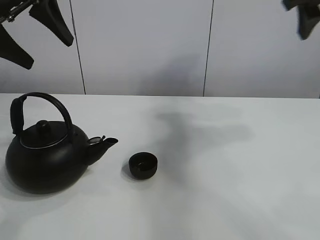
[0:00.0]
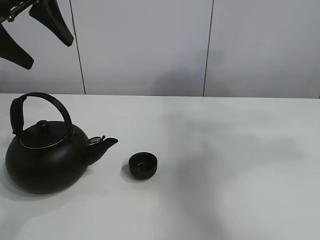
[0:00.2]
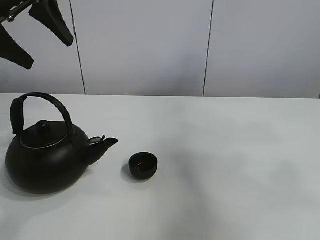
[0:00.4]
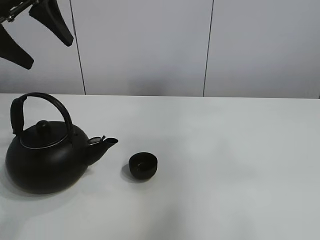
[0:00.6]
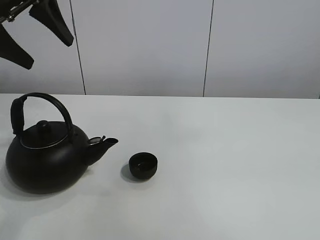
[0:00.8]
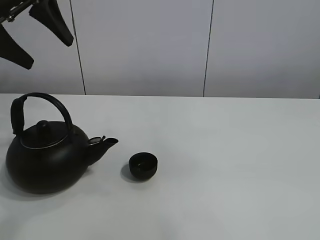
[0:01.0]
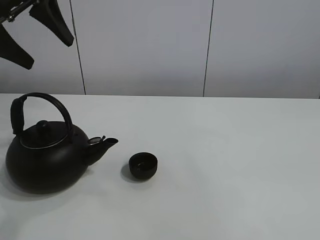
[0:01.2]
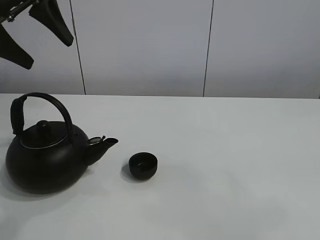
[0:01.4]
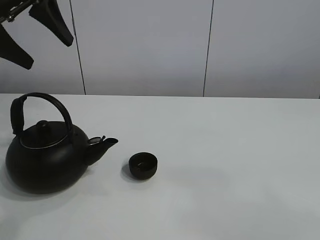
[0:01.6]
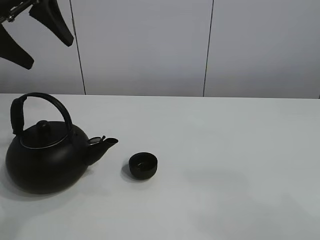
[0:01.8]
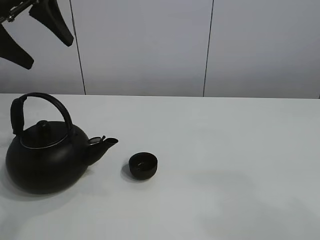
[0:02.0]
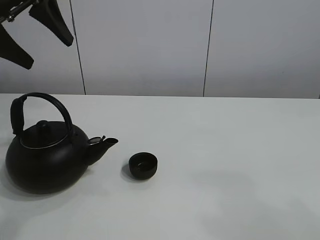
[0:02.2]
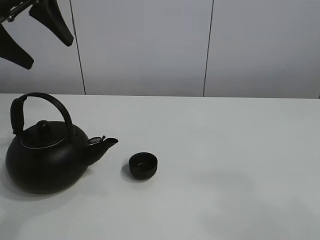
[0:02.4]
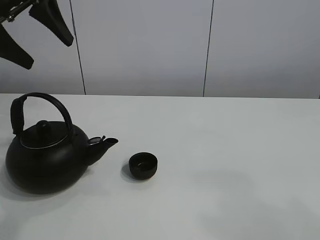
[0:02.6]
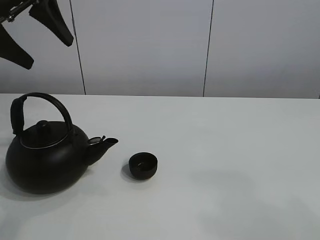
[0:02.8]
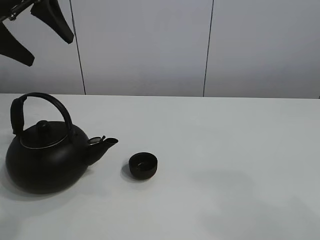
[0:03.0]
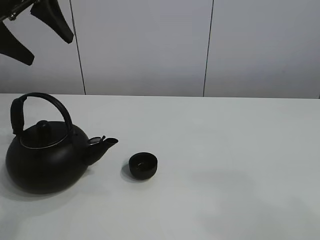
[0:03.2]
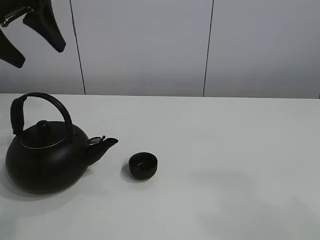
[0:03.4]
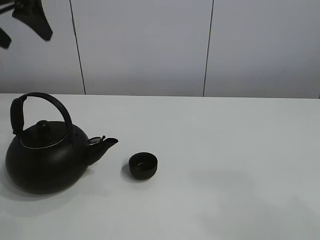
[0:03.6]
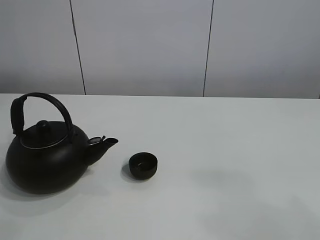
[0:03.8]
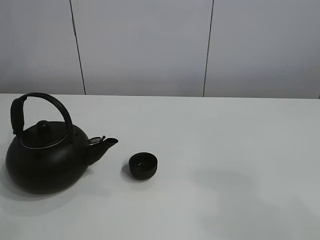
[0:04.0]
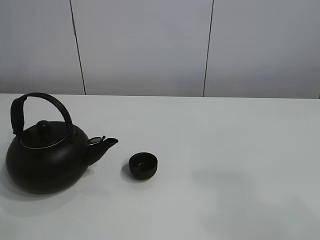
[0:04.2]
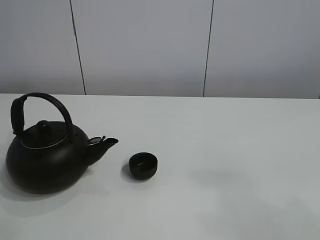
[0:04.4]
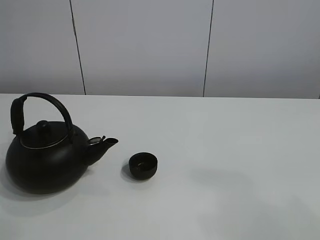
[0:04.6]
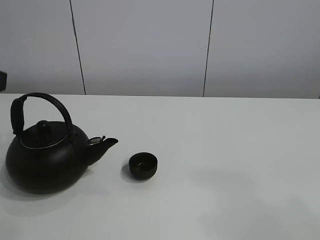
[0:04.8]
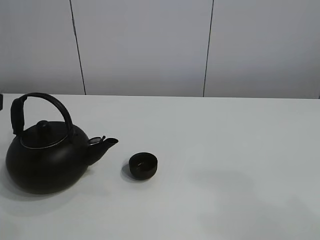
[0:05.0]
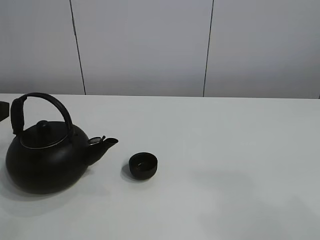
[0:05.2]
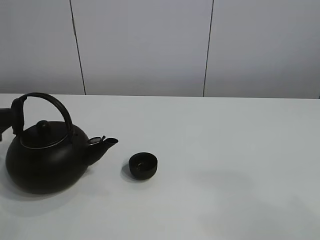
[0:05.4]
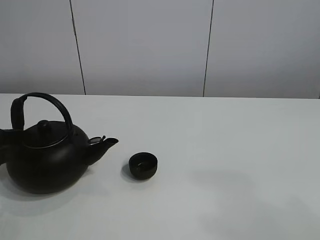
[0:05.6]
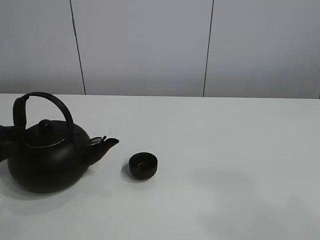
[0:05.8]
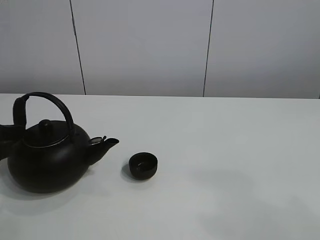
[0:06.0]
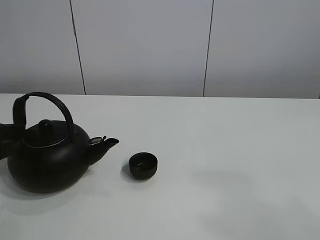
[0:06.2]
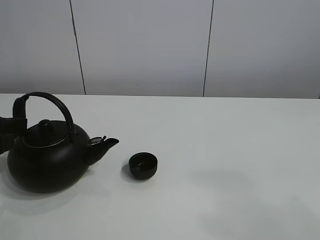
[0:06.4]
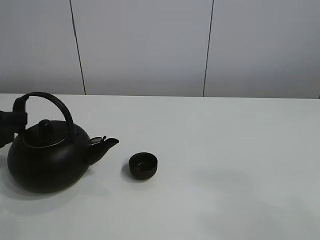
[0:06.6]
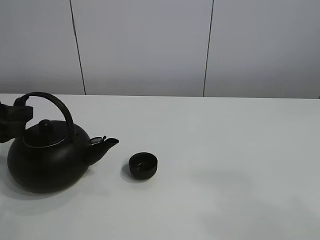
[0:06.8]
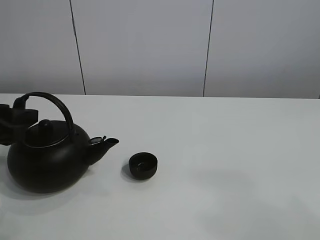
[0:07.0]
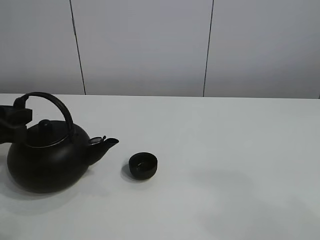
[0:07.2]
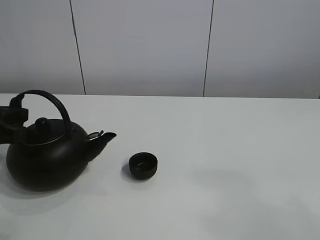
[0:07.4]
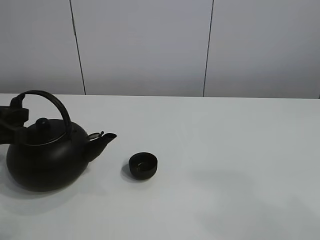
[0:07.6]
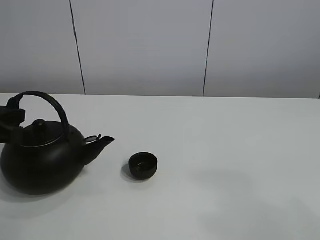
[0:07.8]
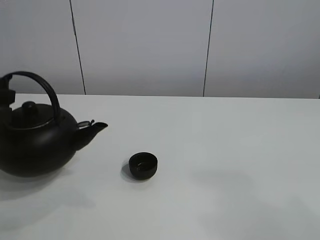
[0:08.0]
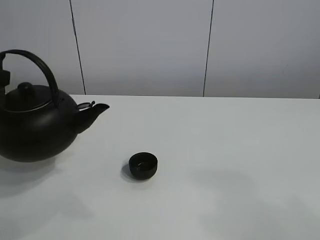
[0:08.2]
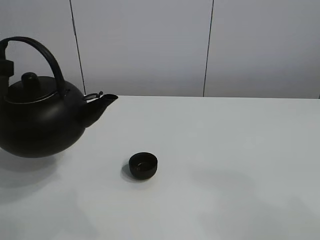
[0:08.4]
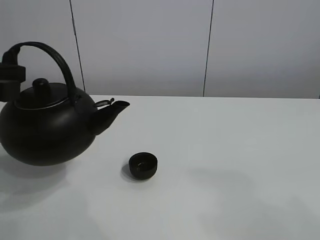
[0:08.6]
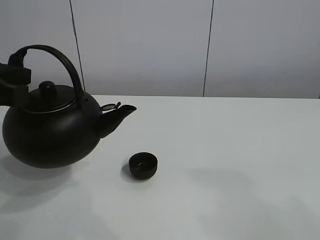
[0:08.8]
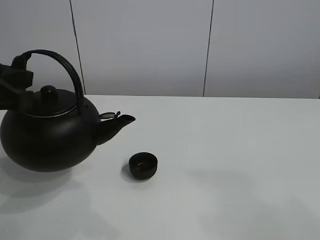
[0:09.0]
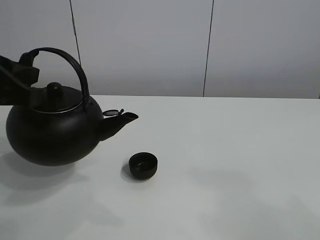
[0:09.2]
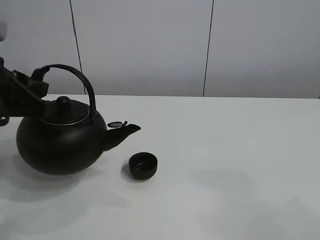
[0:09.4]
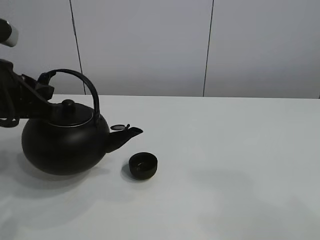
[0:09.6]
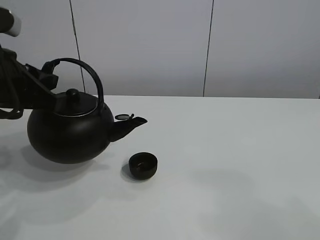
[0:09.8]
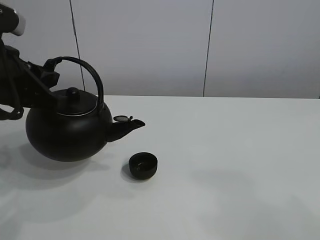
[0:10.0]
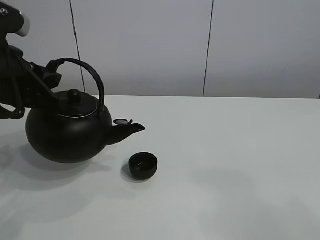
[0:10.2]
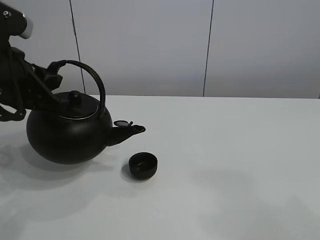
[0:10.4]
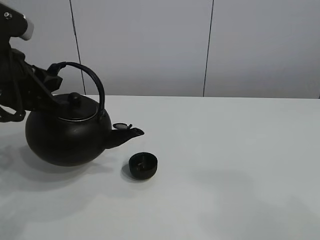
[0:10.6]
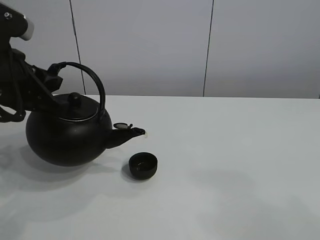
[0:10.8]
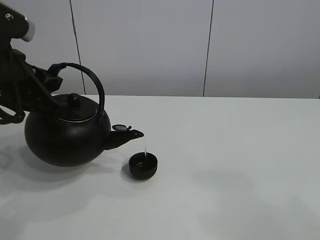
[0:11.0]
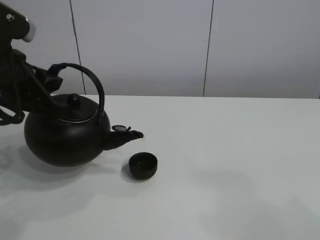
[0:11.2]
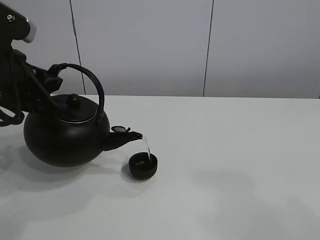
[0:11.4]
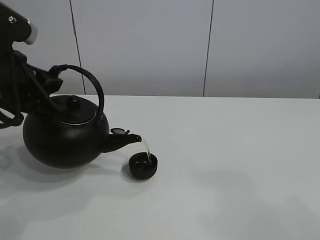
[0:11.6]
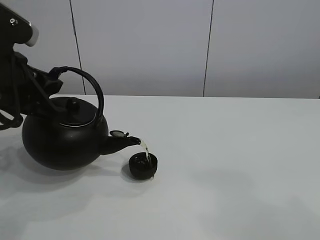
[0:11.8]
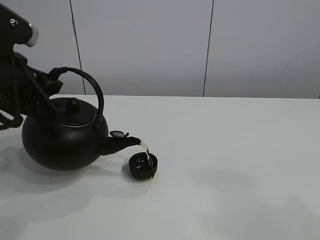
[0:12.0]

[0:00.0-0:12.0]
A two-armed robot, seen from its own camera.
Task of the whole recording: pour tea into the teacup.
Step, 0:00.0 to 0:07.2: Pick up the teapot with the left gripper.
0:00.0 to 0:01.6: The right gripper travels backward by some 35 cm.
0:03.0 to 0:04.4: The left gripper travels backward by some 15 cm.
0:04.4 to 0:06.0: The left gripper shifts roughly 25 cm downward.
0:06.0 to 0:07.6: The left gripper closes its fingers.
0:07.6 to 0:09.0: The left gripper moves upward, approximately 10 cm.
0:09.0 to 0:10.4: The left gripper changes place by some 5 cm.
0:10.4 to 0:12.0: The grippers make only small movements.

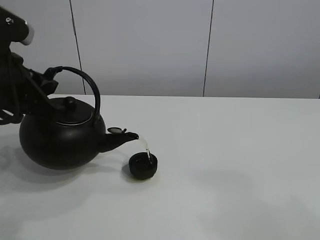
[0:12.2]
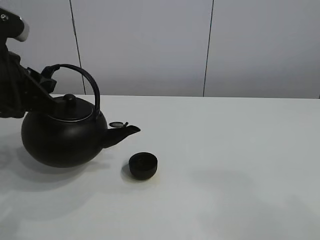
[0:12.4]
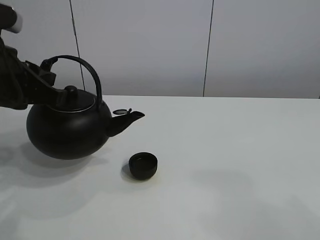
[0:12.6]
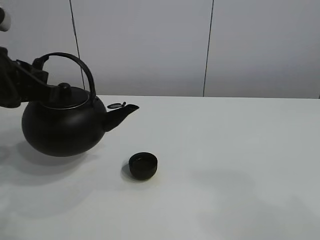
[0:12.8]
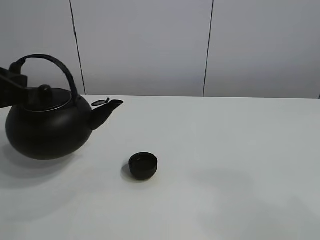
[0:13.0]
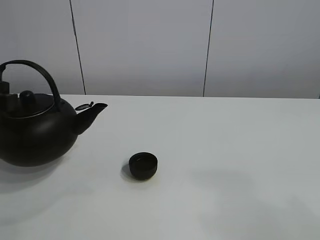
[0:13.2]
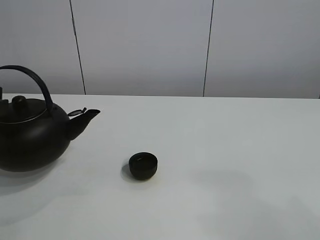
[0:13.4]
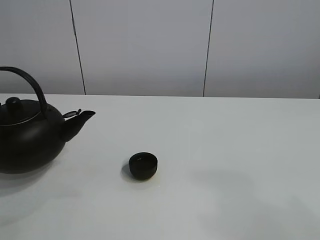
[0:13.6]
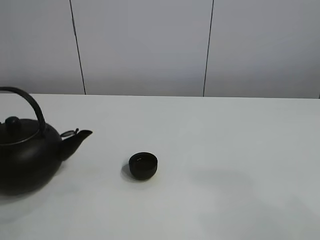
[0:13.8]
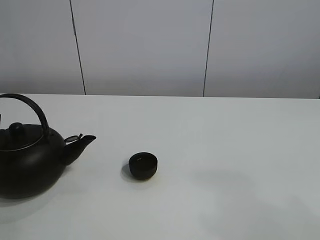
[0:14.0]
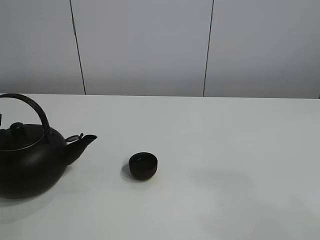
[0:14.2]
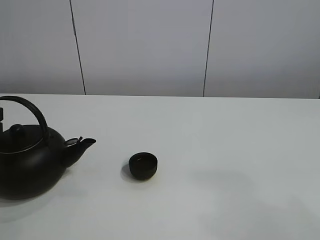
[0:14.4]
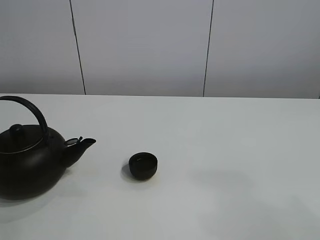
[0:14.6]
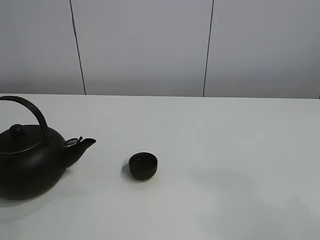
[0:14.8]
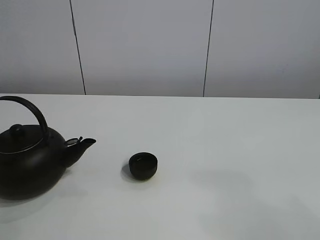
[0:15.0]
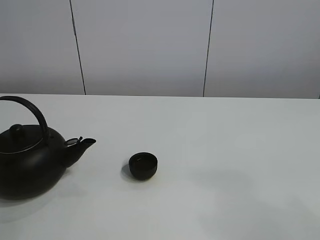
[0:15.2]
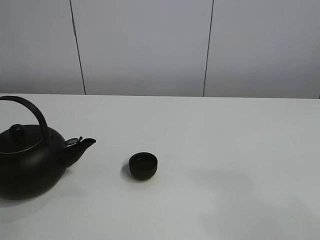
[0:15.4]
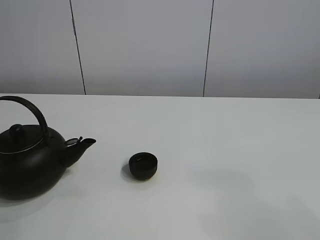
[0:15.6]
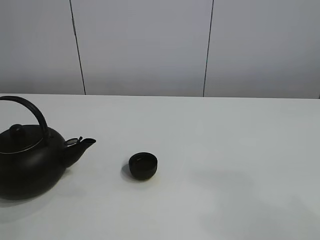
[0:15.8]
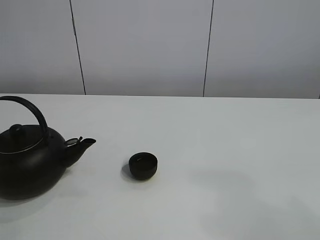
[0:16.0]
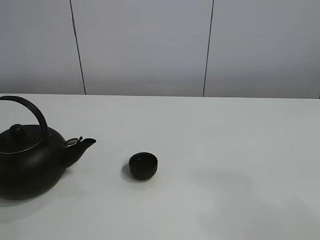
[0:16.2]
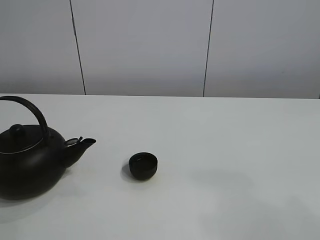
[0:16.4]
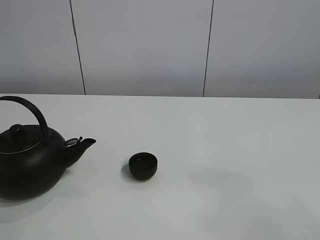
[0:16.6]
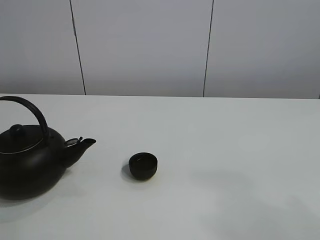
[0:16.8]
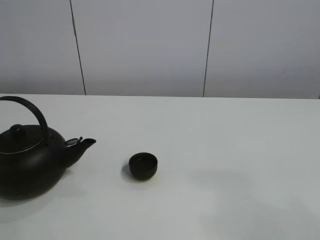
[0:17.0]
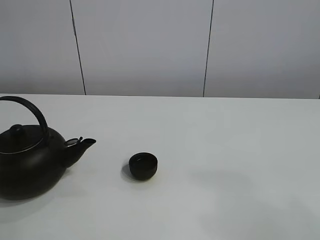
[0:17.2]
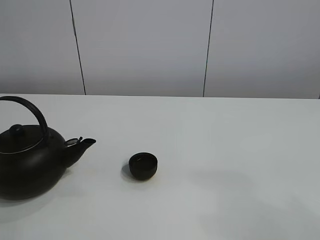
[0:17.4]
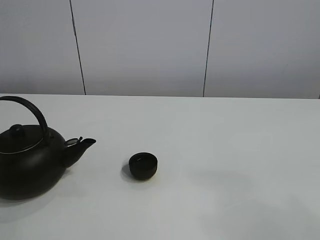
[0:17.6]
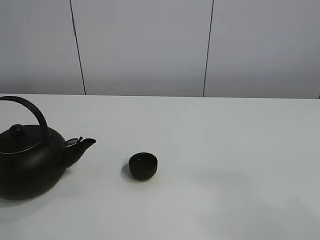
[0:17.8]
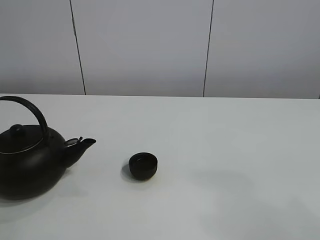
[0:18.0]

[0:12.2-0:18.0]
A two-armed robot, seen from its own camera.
Task of the whole recording: pour tea into the teacup.
0:12.2 to 0:13.6: The left gripper travels to the left by some 10 cm.
0:13.6 to 0:15.0: The left gripper moves approximately 5 cm, and opens its fingers.

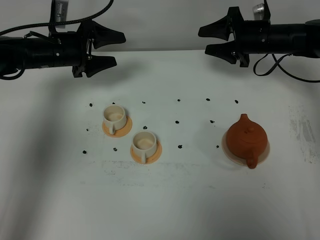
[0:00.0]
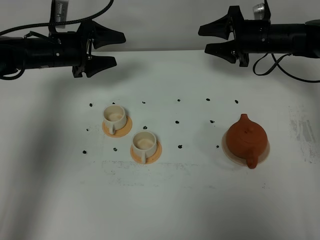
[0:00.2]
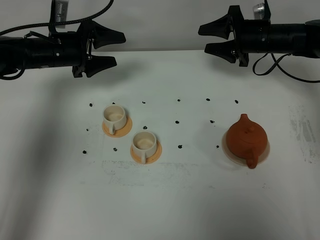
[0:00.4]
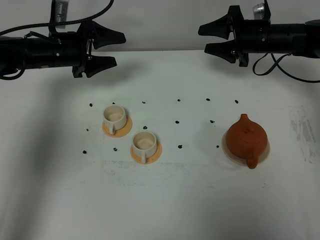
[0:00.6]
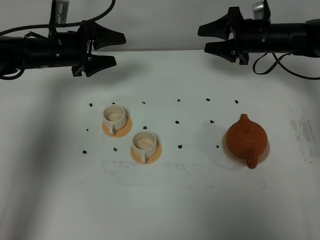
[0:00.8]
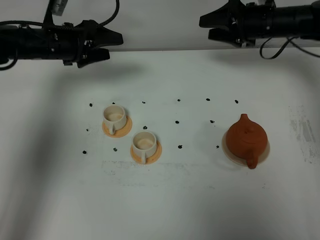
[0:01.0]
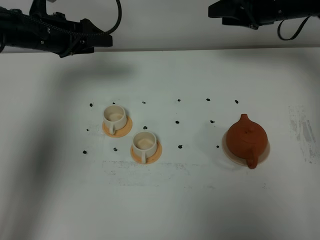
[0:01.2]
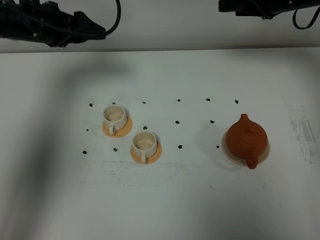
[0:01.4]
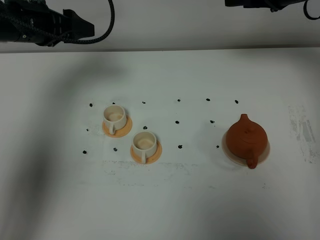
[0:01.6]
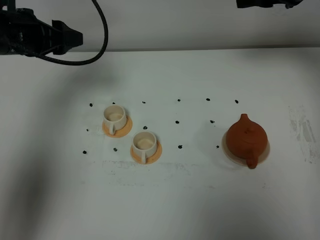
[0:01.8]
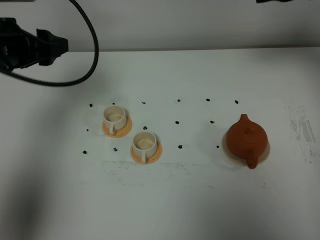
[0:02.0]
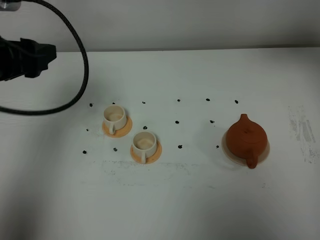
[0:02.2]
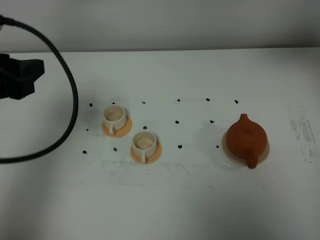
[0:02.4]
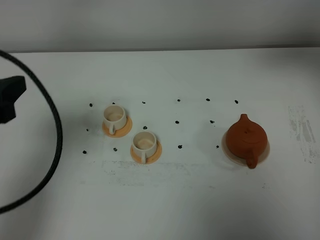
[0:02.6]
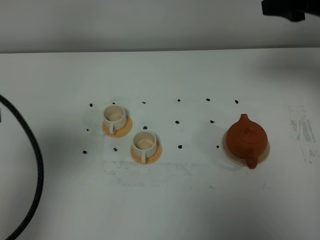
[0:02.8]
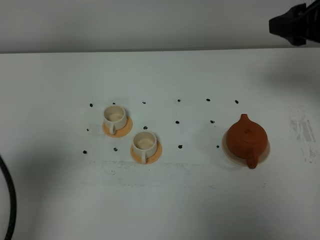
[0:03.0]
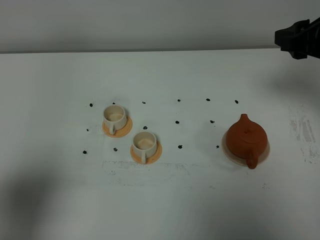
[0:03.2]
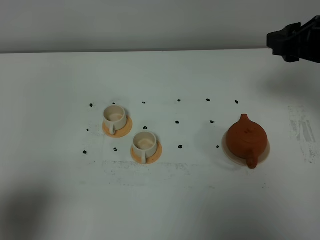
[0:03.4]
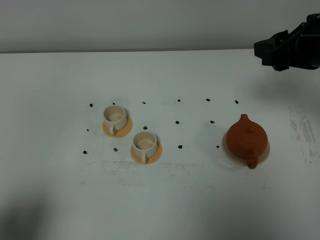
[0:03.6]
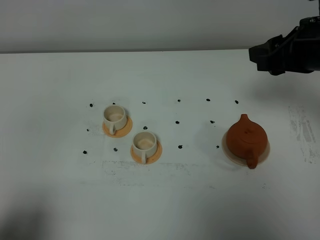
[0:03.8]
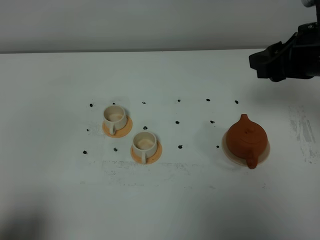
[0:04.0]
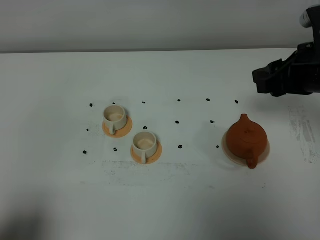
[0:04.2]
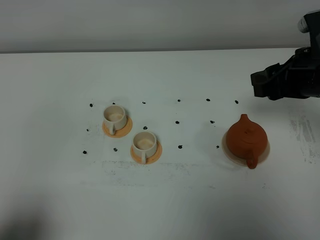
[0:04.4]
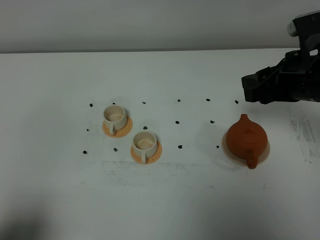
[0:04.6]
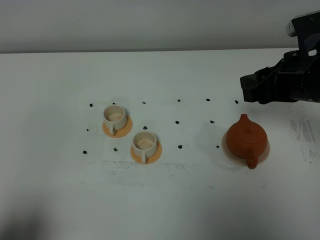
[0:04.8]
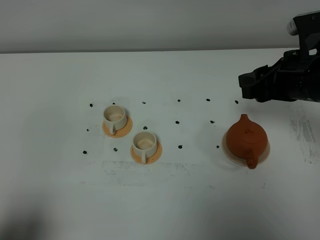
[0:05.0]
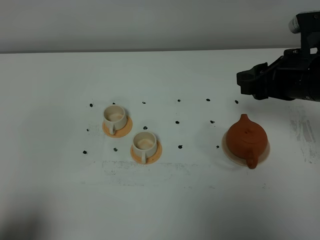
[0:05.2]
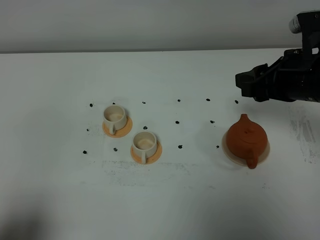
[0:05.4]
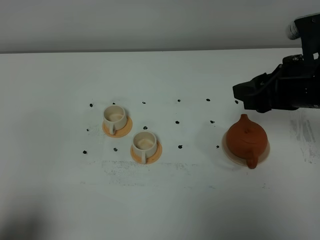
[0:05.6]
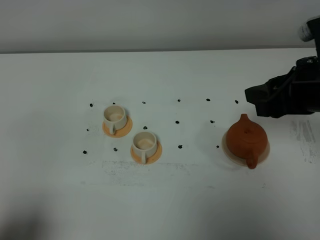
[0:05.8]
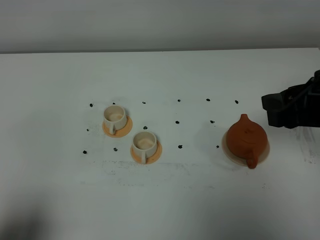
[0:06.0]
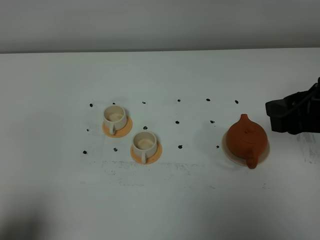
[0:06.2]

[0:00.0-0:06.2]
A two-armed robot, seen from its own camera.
Task of the whole recording: grasp the brown teapot and pour the tea into the two white teacups one by one, put the brown teapot back in its original place.
0:00.0 to 0:01.6: The left gripper shifts approximately 10 cm upward and backward, and closes up; the right gripper heads upward, covering about 15 cm.
0:01.6 to 0:03.2: The left gripper moves backward, some 35 cm; the right gripper heads backward, covering roughly 15 cm.
0:03.2 to 0:04.6: The right gripper ends up roughly 5 cm from where it was; the left gripper is displaced downward and backward by roughly 10 cm, and closes.
0:04.6 to 0:06.2: The right gripper moves backward, about 10 cm.
